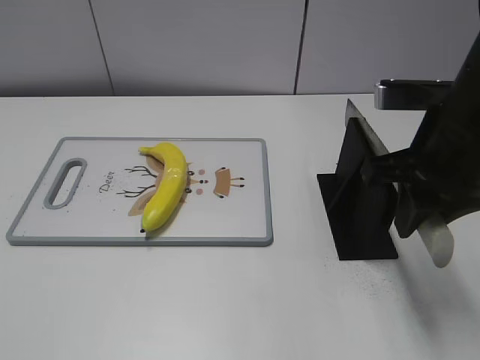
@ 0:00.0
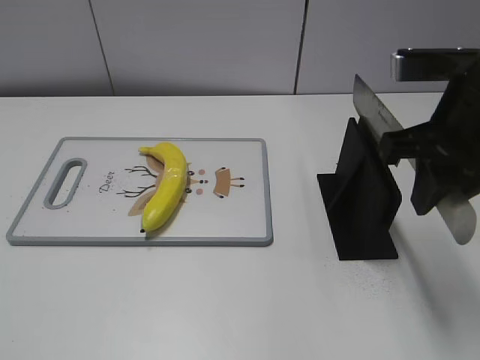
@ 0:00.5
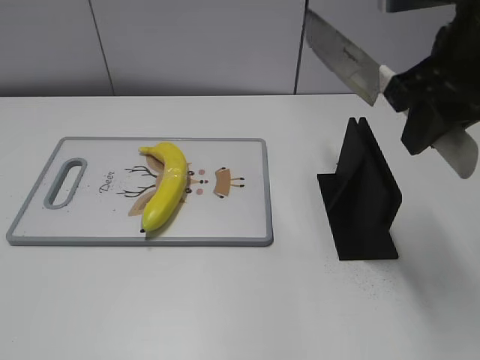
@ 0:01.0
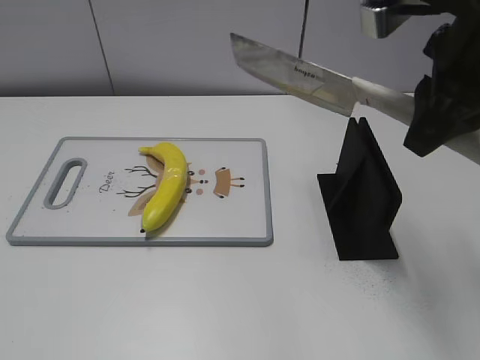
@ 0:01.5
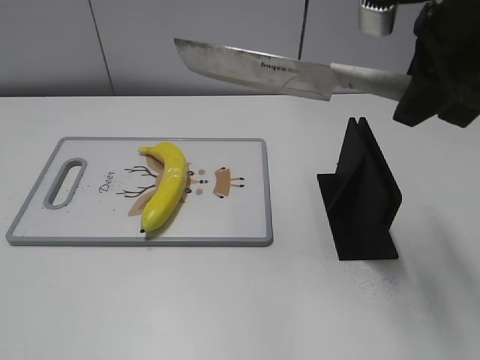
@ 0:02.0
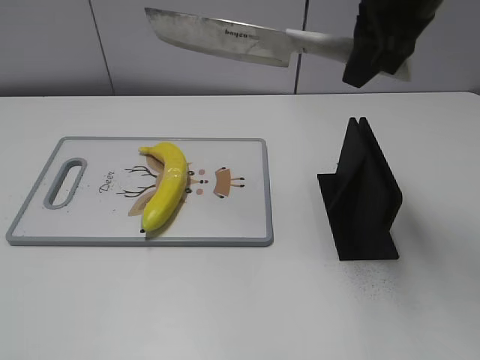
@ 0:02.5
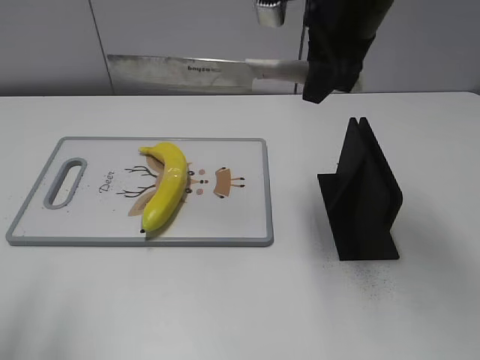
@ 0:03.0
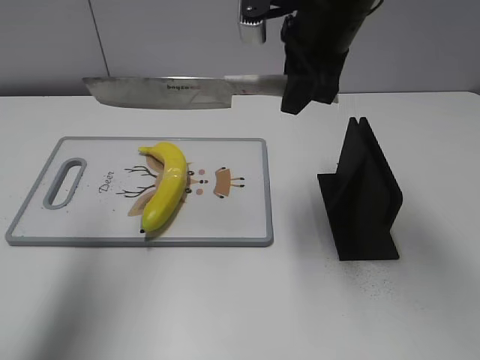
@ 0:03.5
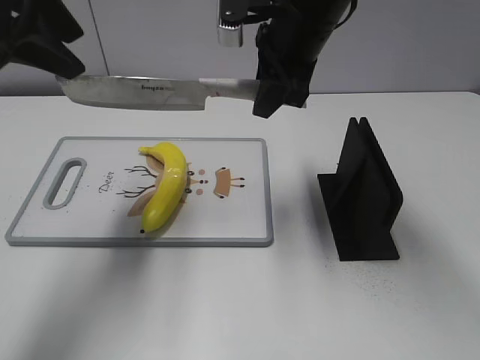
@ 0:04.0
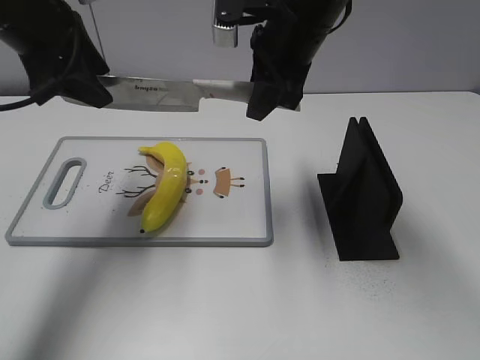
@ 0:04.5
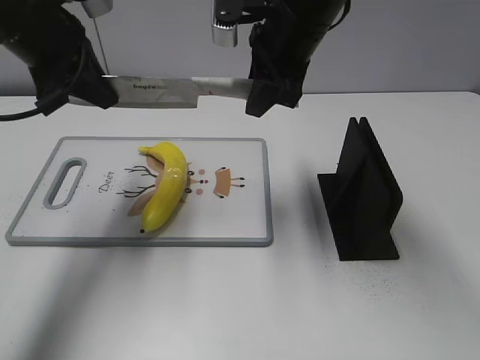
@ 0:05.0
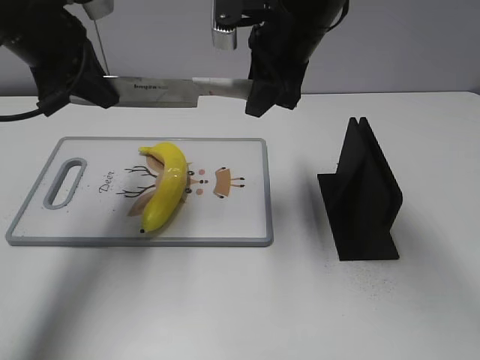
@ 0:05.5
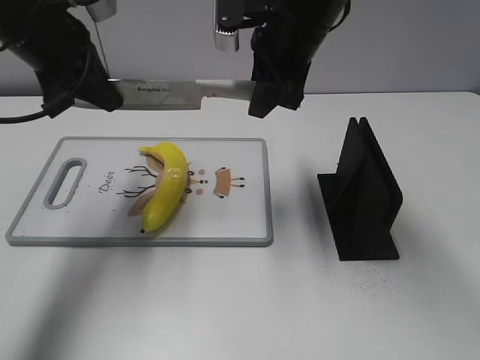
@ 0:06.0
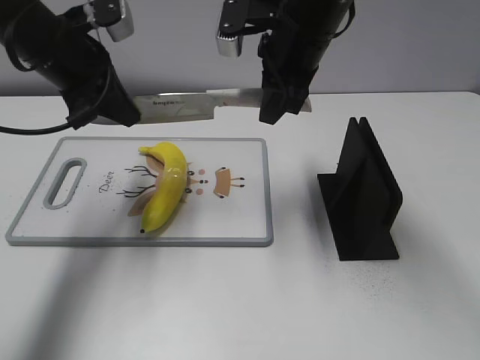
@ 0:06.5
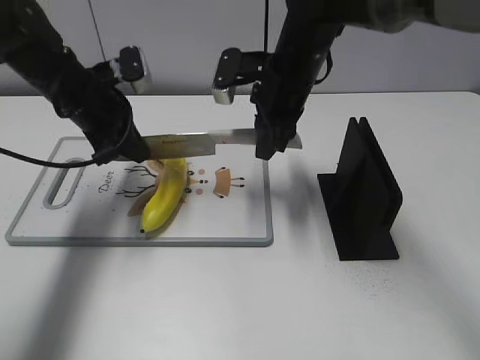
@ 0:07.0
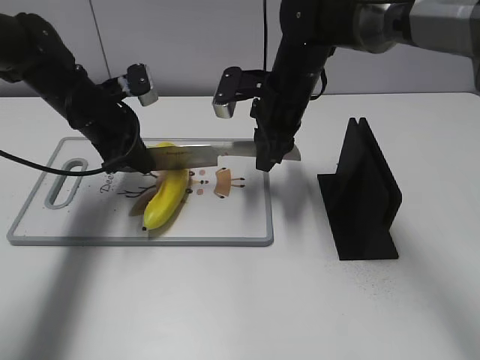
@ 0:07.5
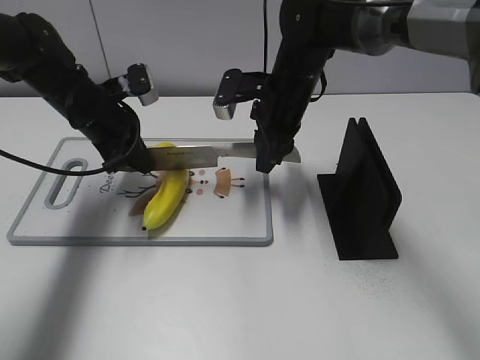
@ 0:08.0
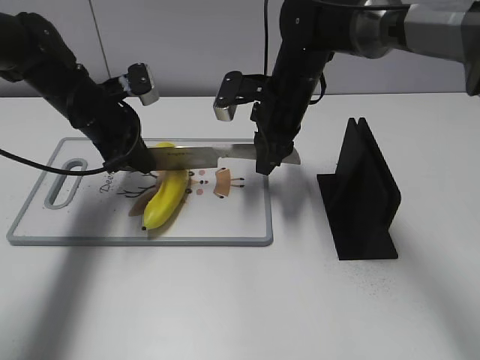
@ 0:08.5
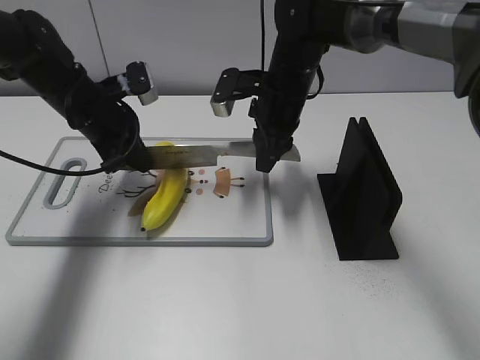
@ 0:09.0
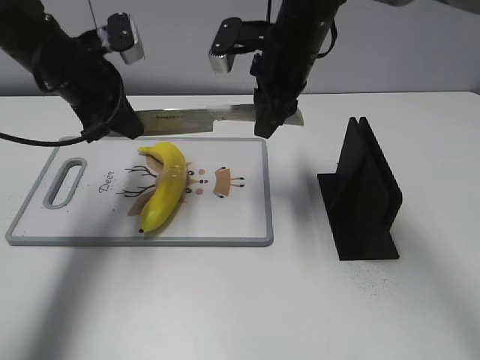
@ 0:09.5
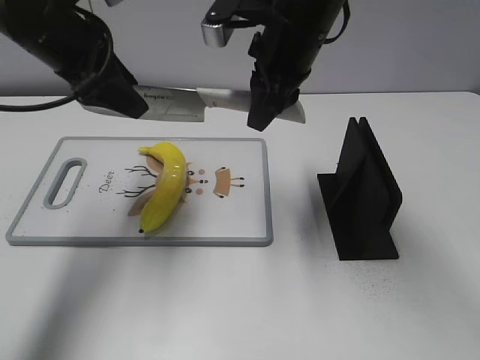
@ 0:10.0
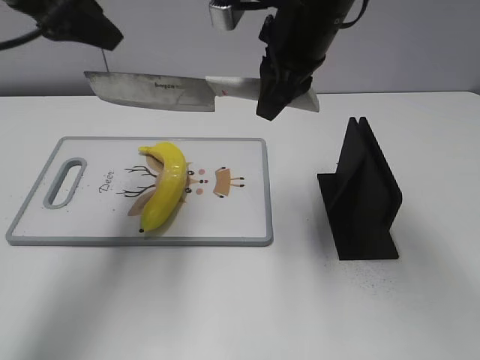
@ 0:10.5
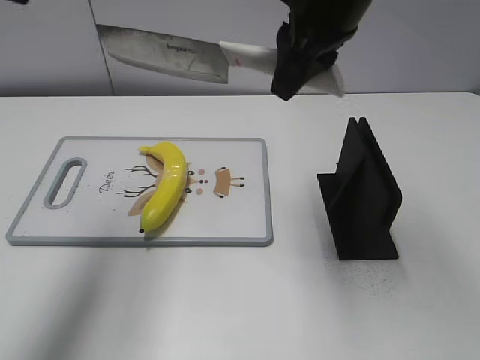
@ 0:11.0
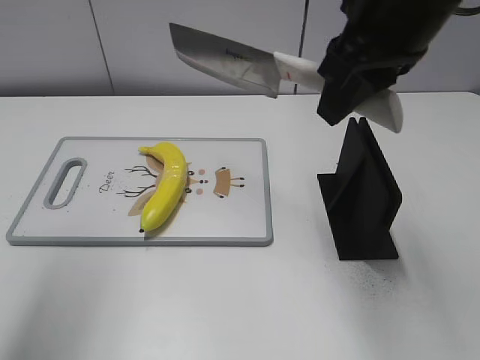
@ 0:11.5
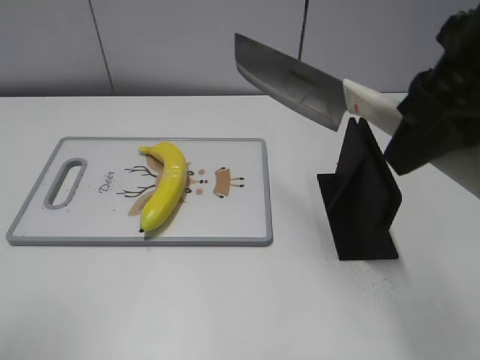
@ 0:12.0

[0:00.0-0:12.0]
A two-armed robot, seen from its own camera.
Task of the whole recording: cut plastic banana.
Step, 0:01.0 to 0:07.5: Lift the knife with your right hand.
0:00.0 to 0:02.0: The right gripper is displaced upward by about 10 cm, while the left gripper opens.
0:02.0 to 0:04.0: The left gripper goes approximately 30 cm forward. Meanwhile the right gripper heads forward, to the left and downward, covering roughly 15 cm.
0:04.0 to 0:06.0: The left gripper travels downward by roughly 10 cm, and closes up.
0:06.0 to 0:08.0: The two grippers go roughly 15 cm downward.
0:08.0 to 0:10.0: The two grippers go approximately 15 cm upward. The left gripper opens.
0:10.0 to 0:12.0: The left gripper is displaced backward by about 25 cm. Meanwhile the right gripper moves backward, to the right and upward, roughly 20 cm.

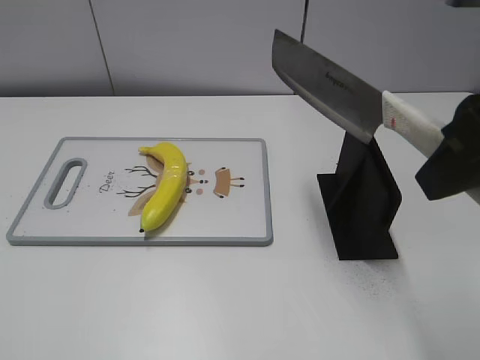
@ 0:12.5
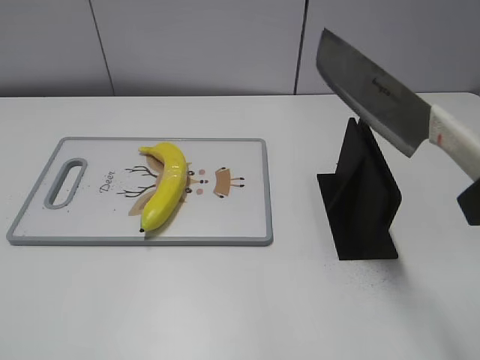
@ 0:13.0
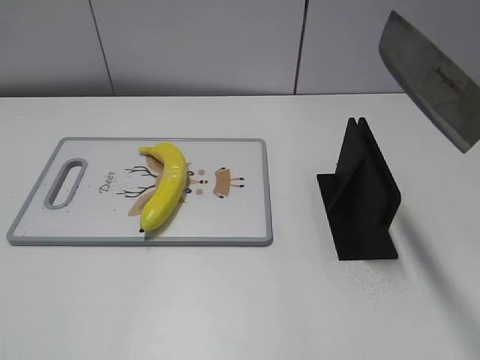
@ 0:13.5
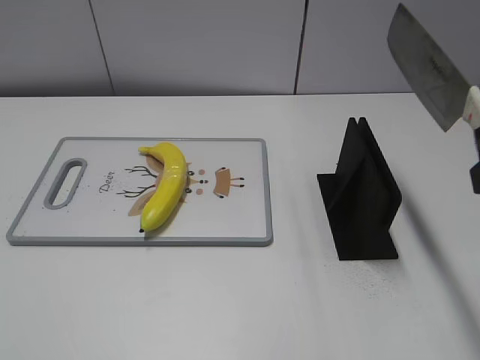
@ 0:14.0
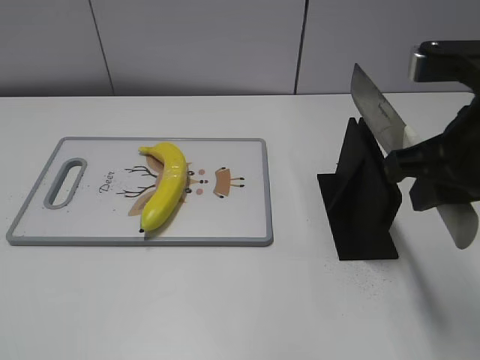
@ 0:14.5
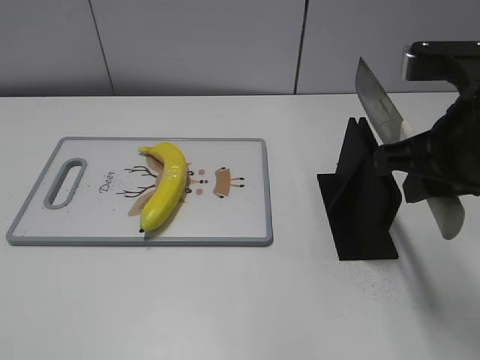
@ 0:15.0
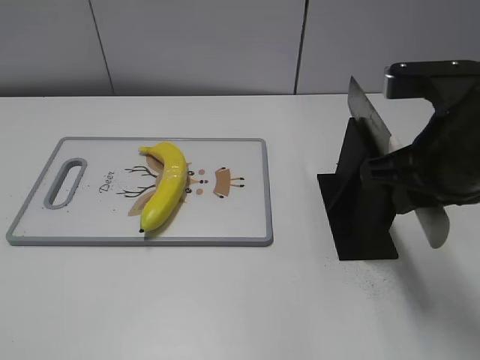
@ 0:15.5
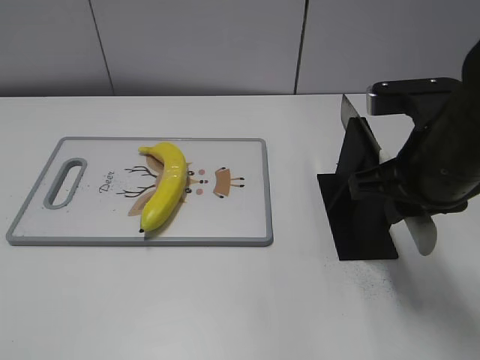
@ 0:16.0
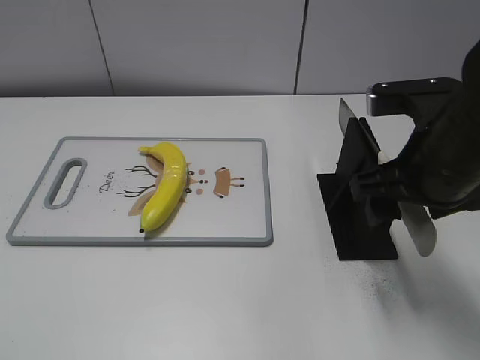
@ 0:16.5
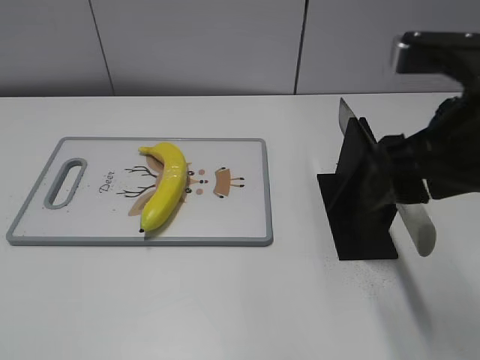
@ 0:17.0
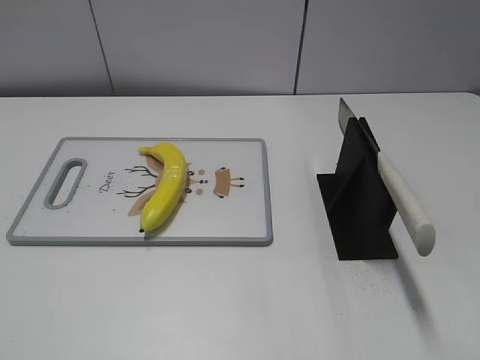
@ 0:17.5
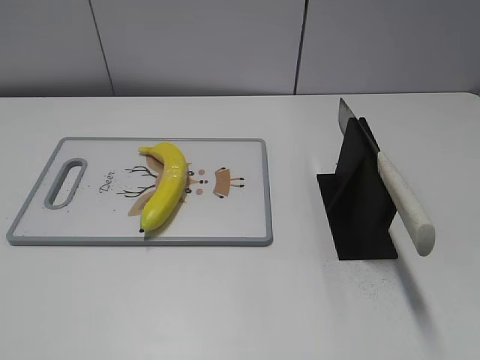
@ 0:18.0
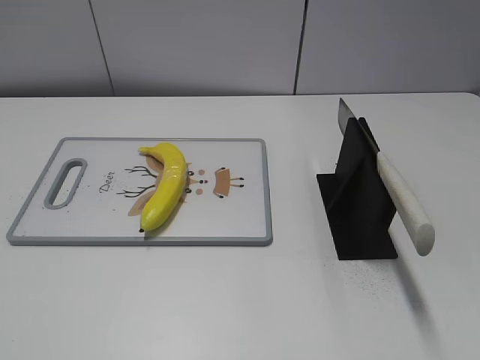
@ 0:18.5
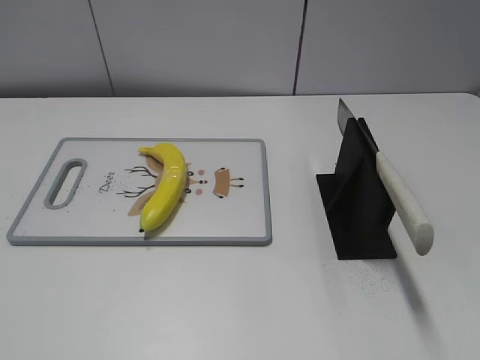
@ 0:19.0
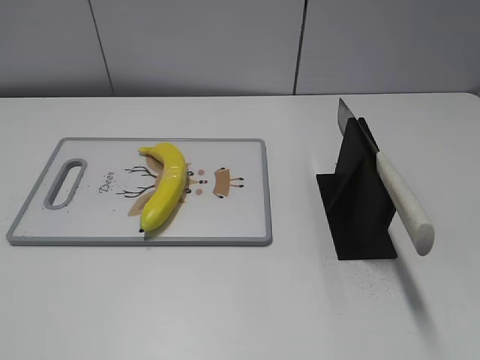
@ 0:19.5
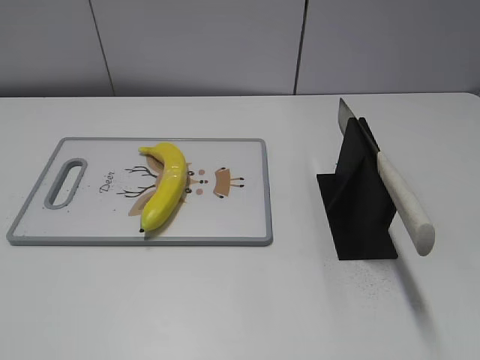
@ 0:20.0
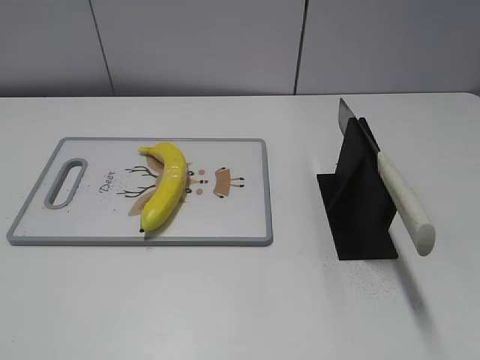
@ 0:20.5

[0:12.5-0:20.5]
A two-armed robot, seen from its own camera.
Task of the whole recording: cut plastic banana.
Step, 0:13.5 to 0:20.5: Place the knife on the storage rack with your right hand.
0:12.5 to 0:14.5: The left gripper shifts by roughly 5 cm. The right gripper travels downward by approximately 10 cm.
0:14.5 to 0:16.5: The right gripper shifts by roughly 5 cm, and opens up.
0:16.5 to 0:18.5: The right gripper heads backward and to the right, covering some 25 cm.
